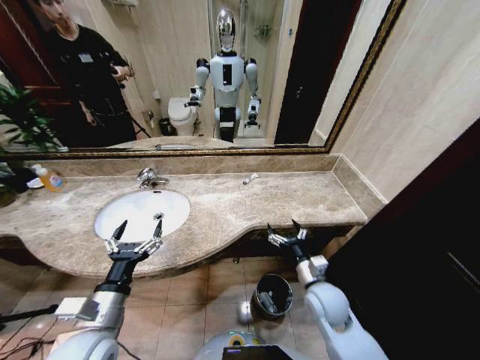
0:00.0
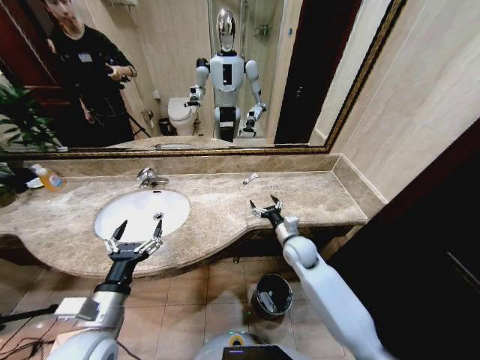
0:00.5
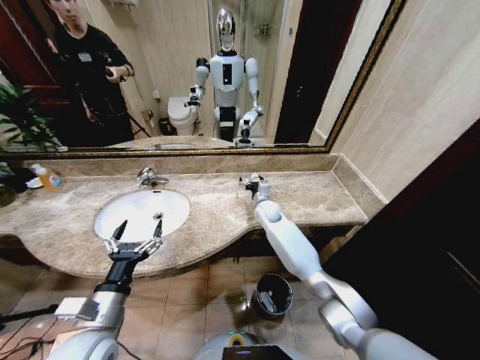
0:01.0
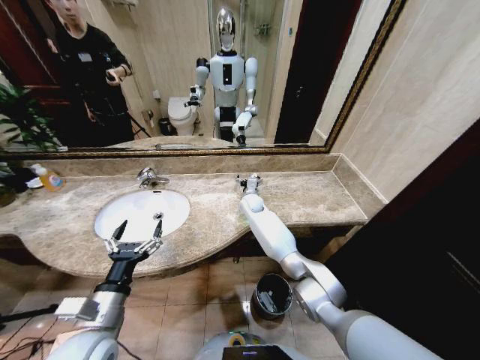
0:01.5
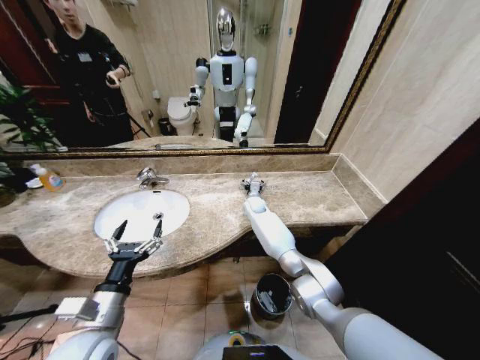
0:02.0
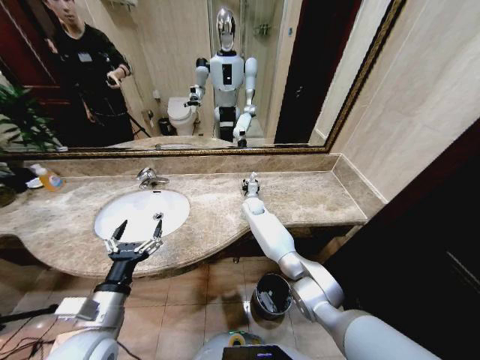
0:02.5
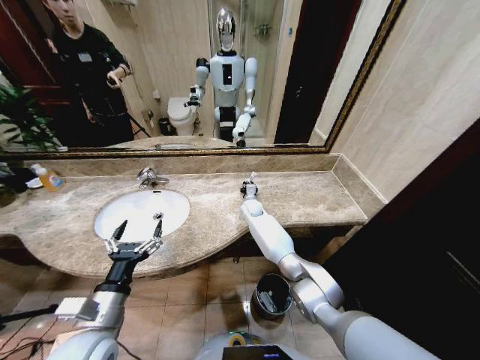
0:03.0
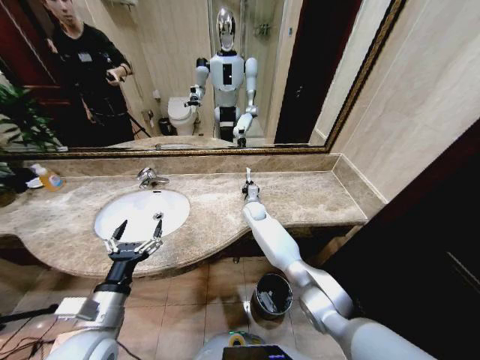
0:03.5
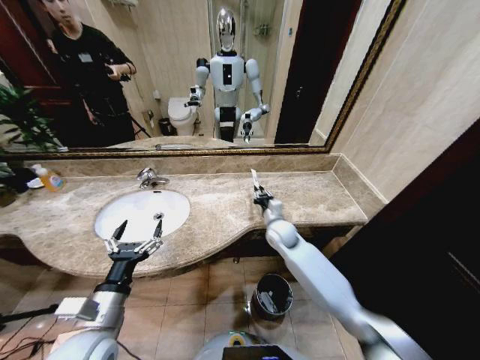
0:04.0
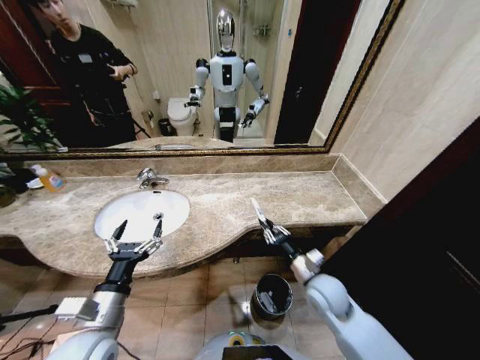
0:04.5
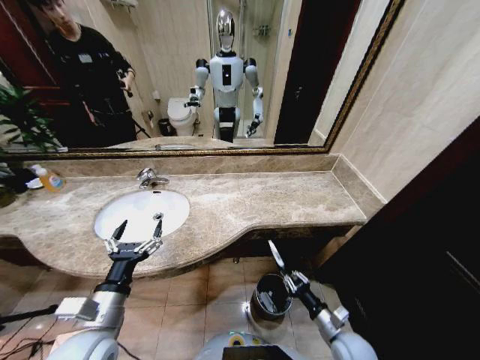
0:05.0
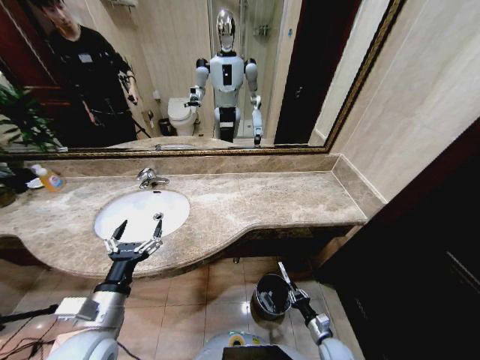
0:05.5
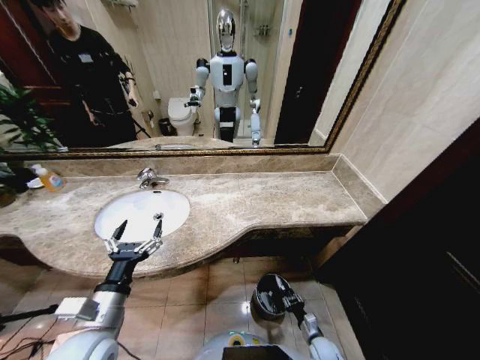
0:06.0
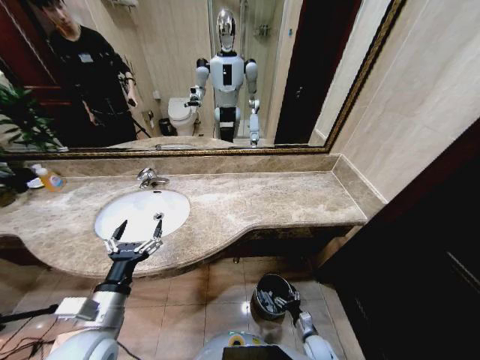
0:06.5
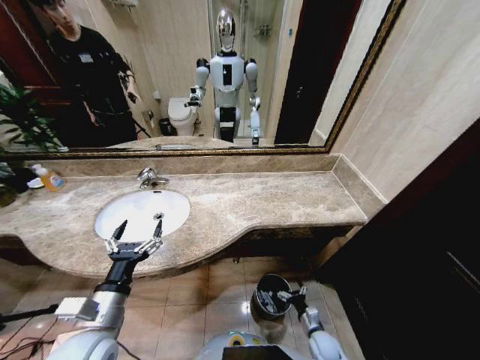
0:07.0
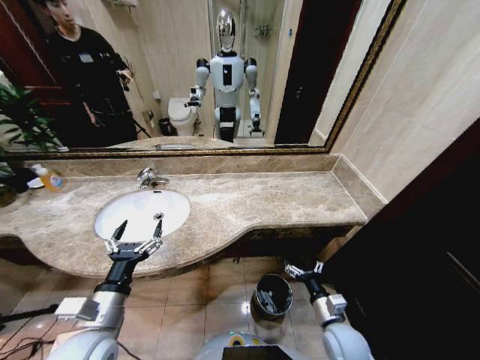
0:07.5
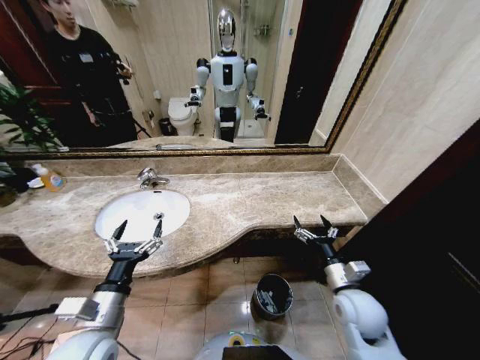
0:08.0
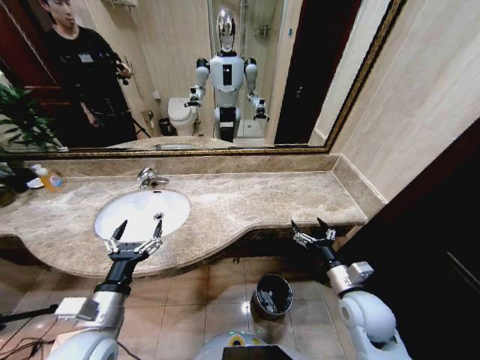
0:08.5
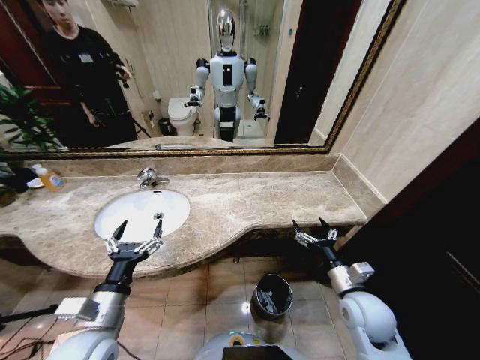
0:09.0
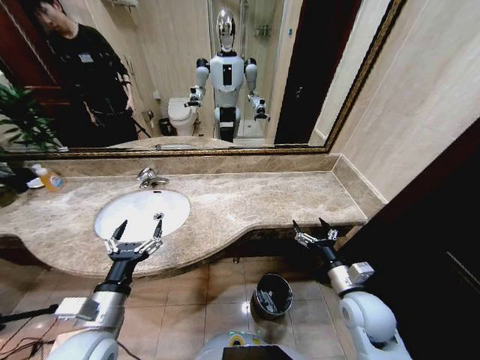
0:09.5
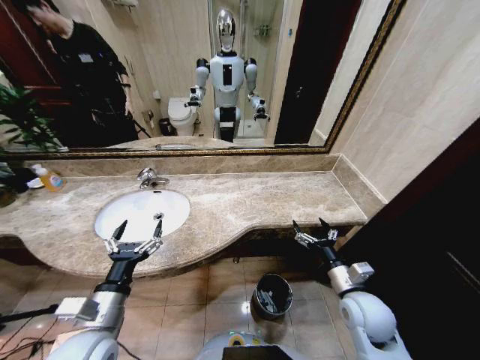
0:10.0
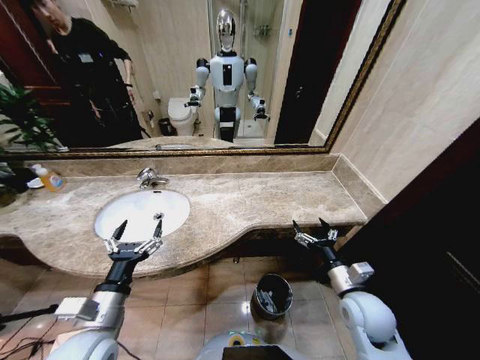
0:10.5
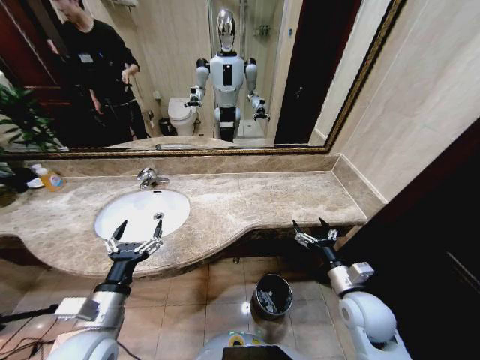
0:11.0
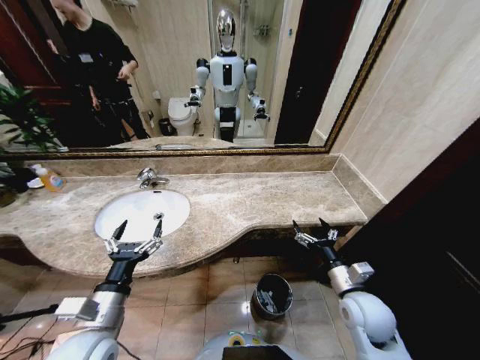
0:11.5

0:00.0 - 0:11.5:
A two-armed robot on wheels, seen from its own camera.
Task of the whole recording: Pick up the trash from the sink and place it in the trash bin.
0:00.0 - 0:02.0: The right gripper travels forward by about 35 cm.
0:02.0 - 0:04.0: The right gripper goes about 15 cm backward, and closes.
0:04.0 - 0:06.0: The right gripper travels downward, backward and to the right by about 50 cm.
0:06.0 - 0:07.5: The right gripper shifts approximately 25 cm upward, and opens.
0:07.5 - 0:09.5: The right gripper heads upward, covering about 10 cm.
0:09.5 - 0:11.5: Both grippers stay about where they are.

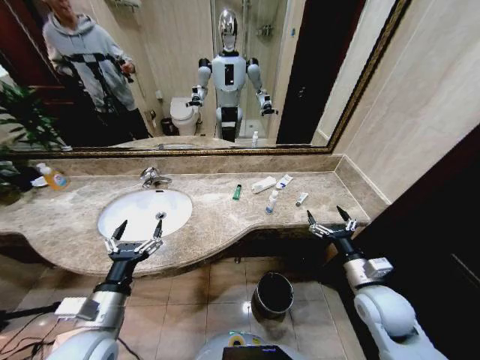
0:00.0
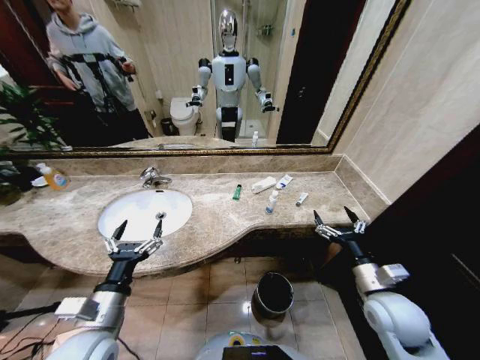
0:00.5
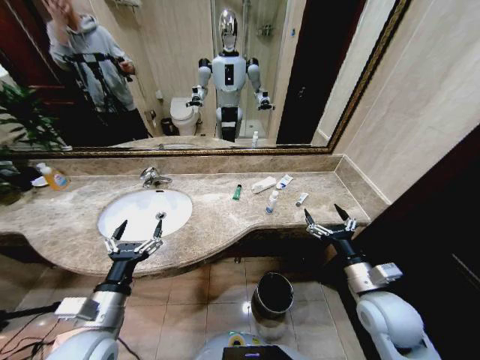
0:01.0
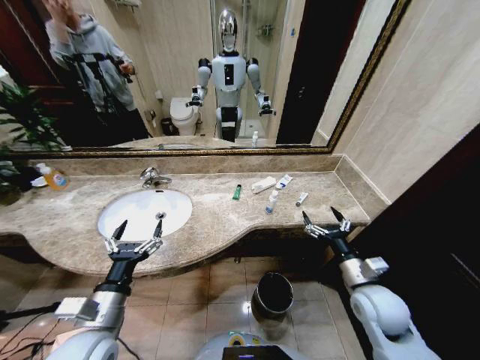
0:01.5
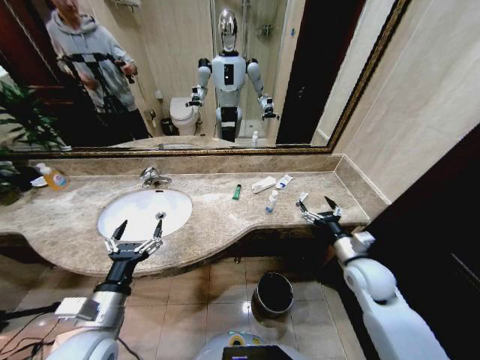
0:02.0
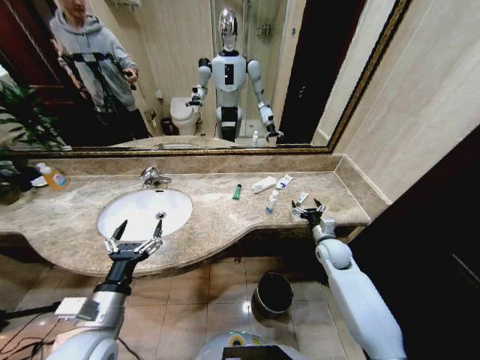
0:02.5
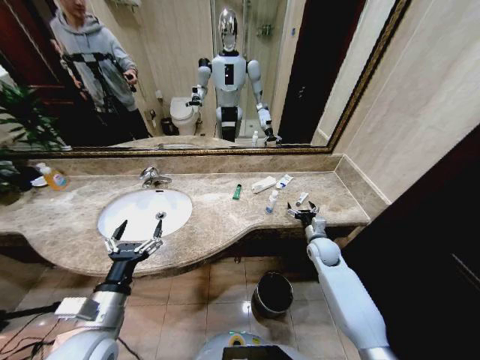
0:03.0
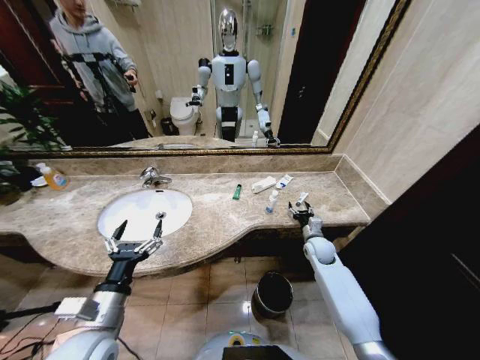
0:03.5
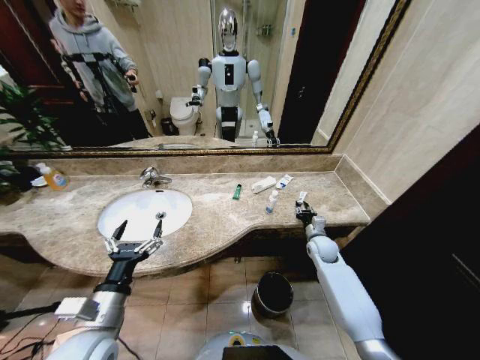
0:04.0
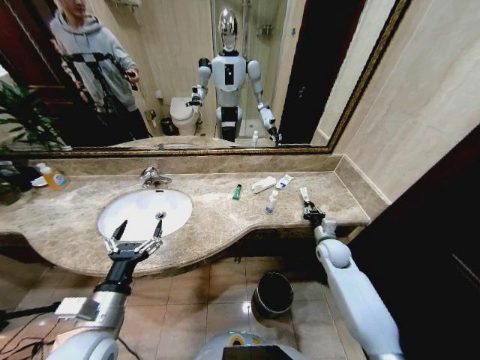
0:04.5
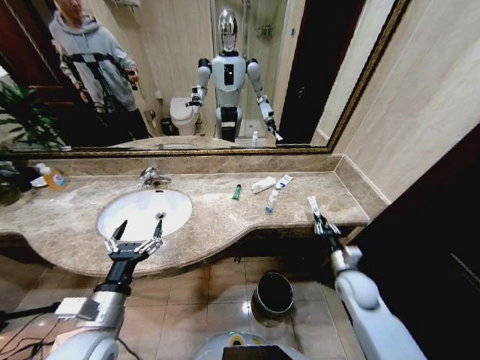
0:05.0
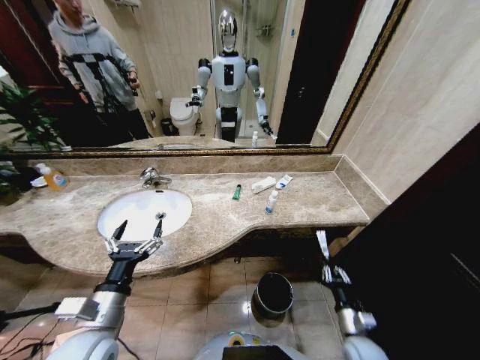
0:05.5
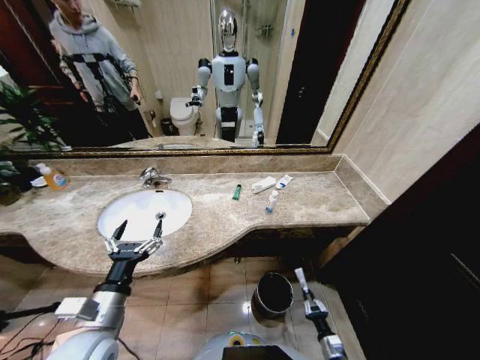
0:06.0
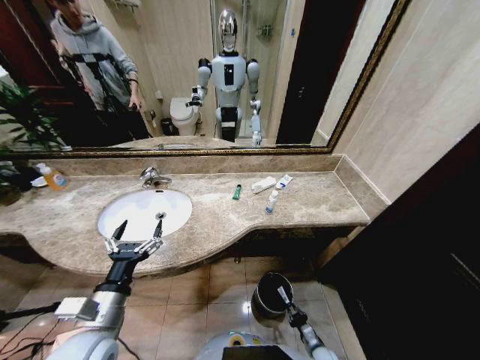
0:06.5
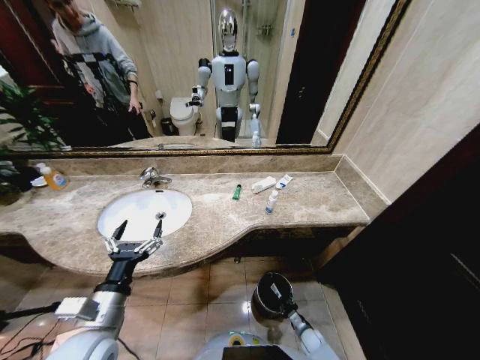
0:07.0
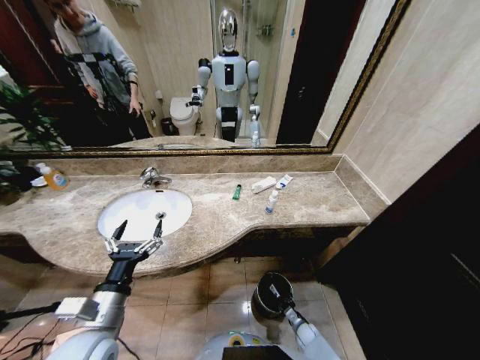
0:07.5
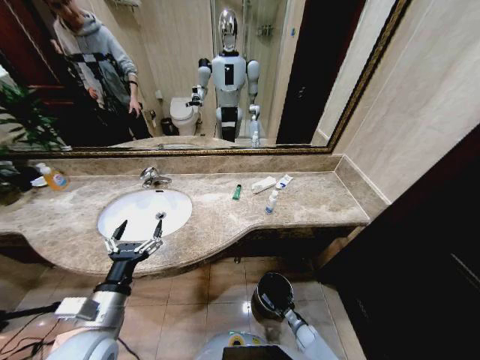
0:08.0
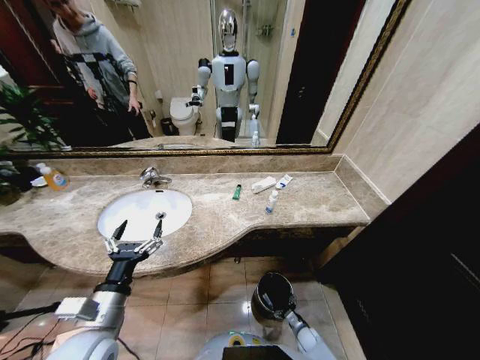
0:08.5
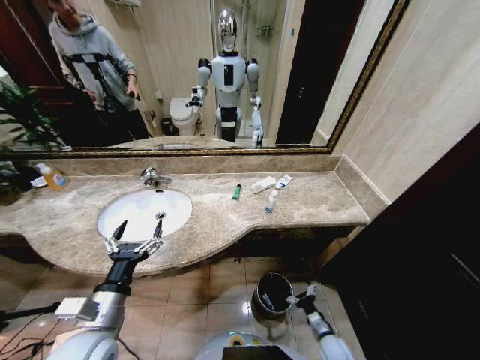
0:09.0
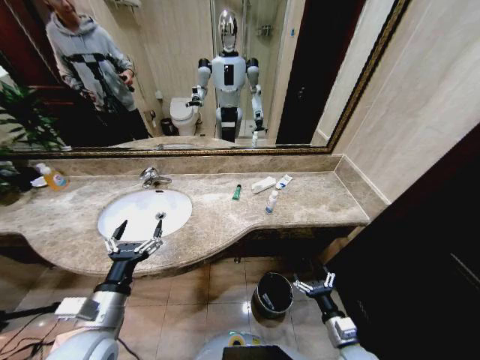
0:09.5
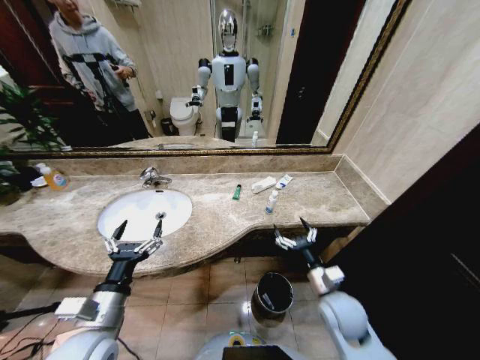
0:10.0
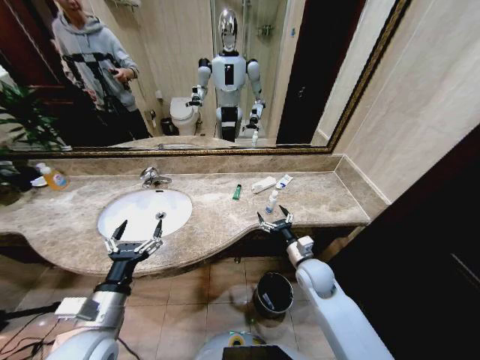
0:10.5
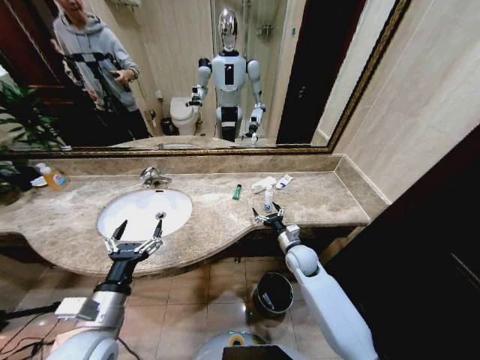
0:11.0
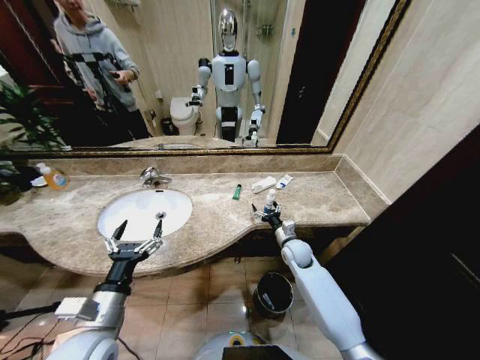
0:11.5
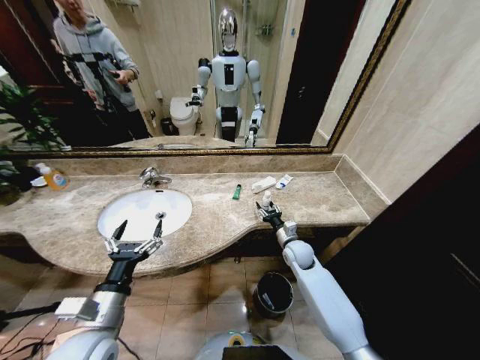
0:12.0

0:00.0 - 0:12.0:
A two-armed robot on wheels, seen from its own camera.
Task of the whole recording: Pick up the trash from the sink and place it in the trash bin.
0:02.0 - 0:04.0: The right gripper heads forward and downward, covering roughly 15 cm, and closes.
0:04.0 - 0:06.0: The right gripper is displaced backward and downward by approximately 40 cm.
0:06.0 - 0:08.0: The right gripper heads forward and downward, covering approximately 15 cm, and opens its fingers.
0:08.0 - 0:10.0: The right gripper goes about 40 cm upward.
0:10.0 - 0:12.0: The right gripper goes roughly 20 cm forward, and closes its fingers.

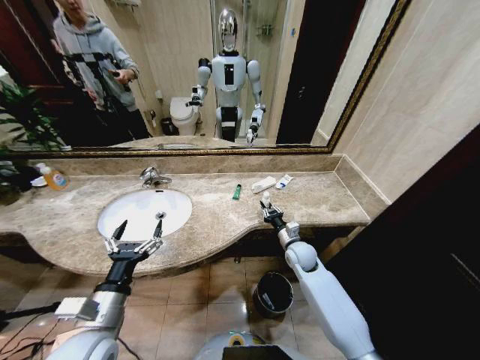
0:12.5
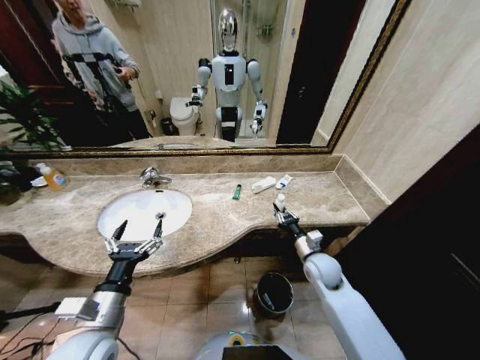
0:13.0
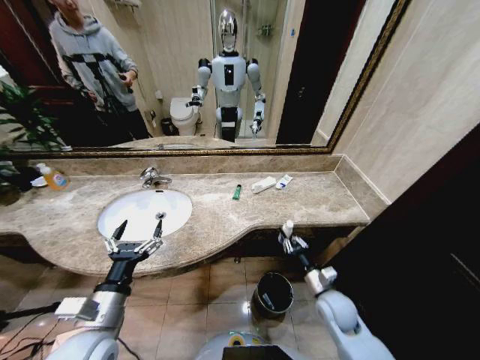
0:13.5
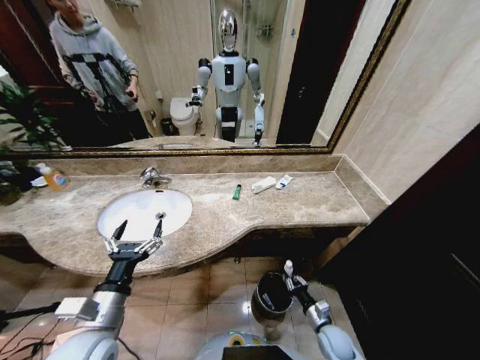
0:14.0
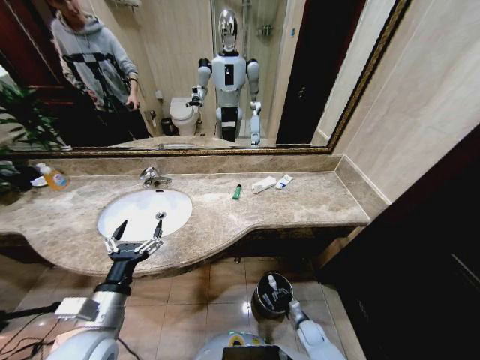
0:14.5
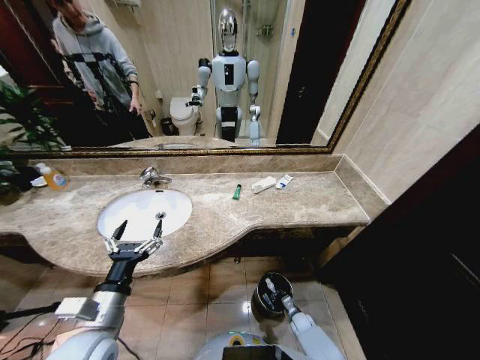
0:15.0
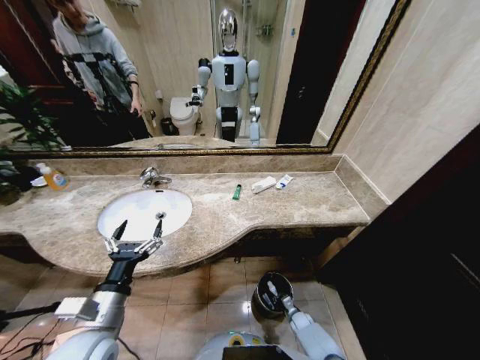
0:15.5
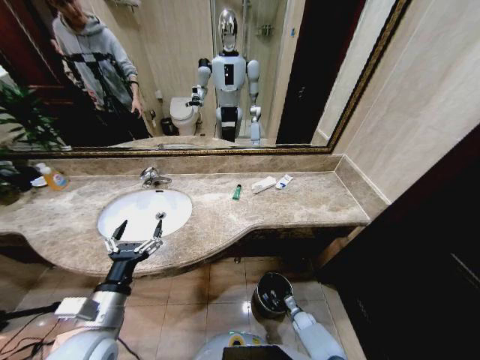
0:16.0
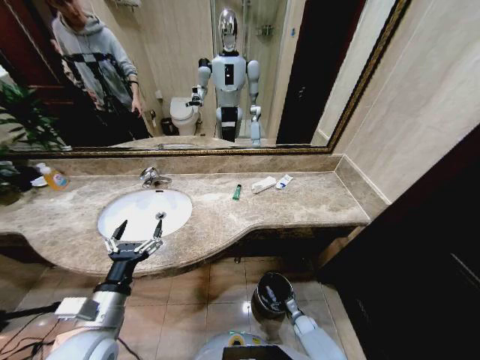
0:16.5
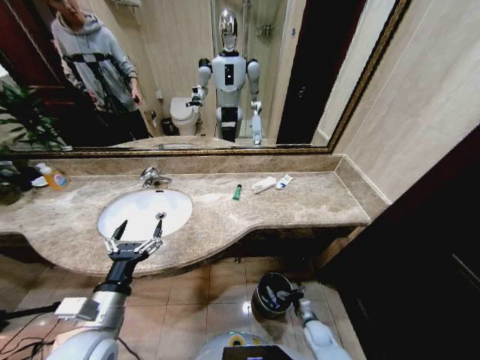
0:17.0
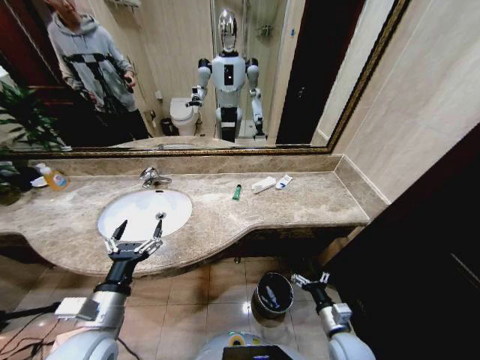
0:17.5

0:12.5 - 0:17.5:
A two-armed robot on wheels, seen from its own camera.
Task of the whole recording: Pick up the trash from the sink and place it in the trash bin.
0:12.5 - 0:15.0: The right gripper heads downward and backward, covering some 35 cm.
0:15.0 - 0:17.5: The right gripper moves upward, roughly 25 cm, and opens its fingers.
